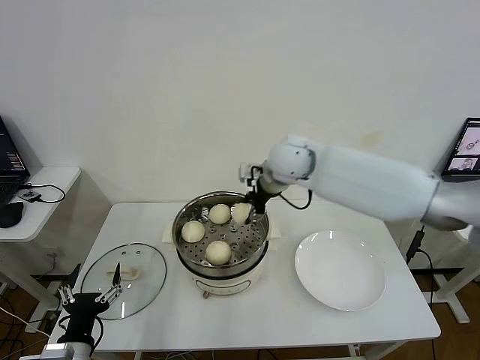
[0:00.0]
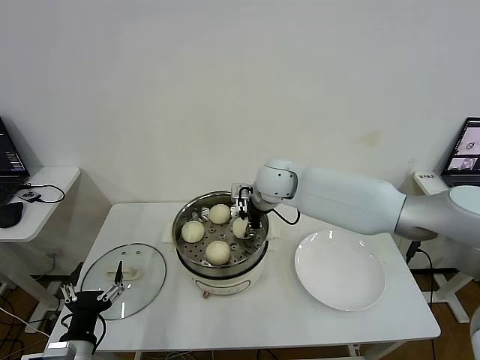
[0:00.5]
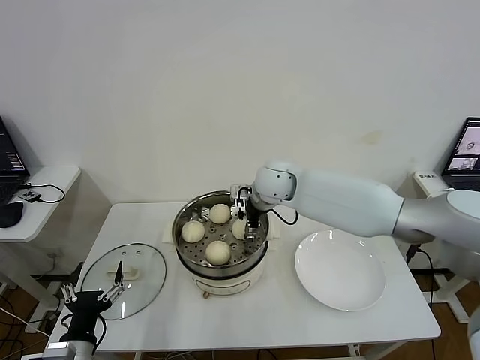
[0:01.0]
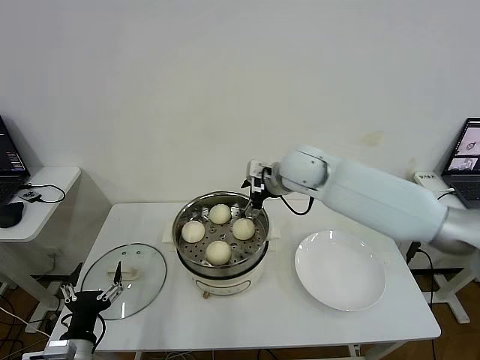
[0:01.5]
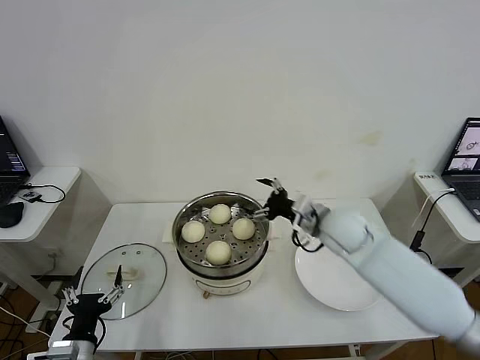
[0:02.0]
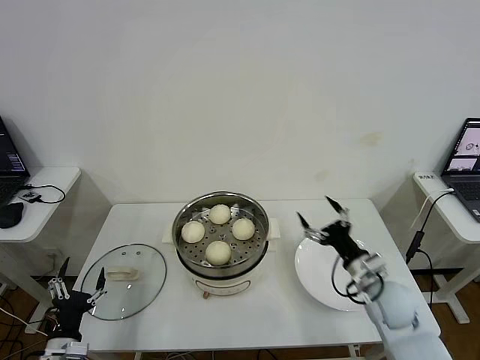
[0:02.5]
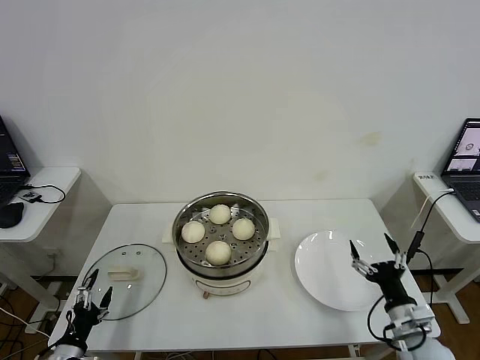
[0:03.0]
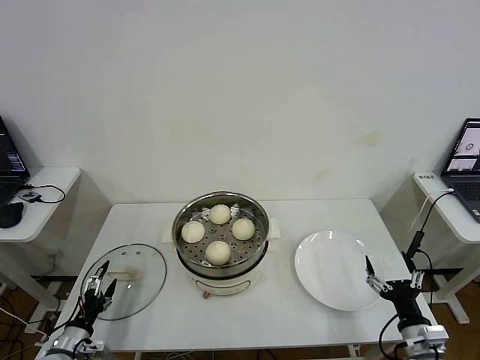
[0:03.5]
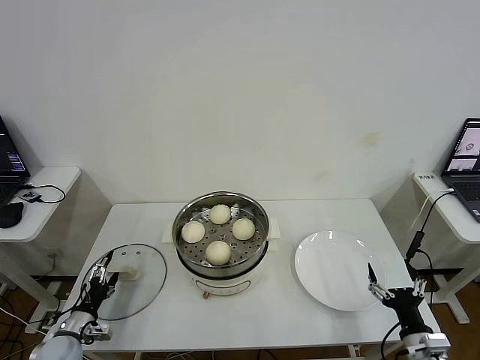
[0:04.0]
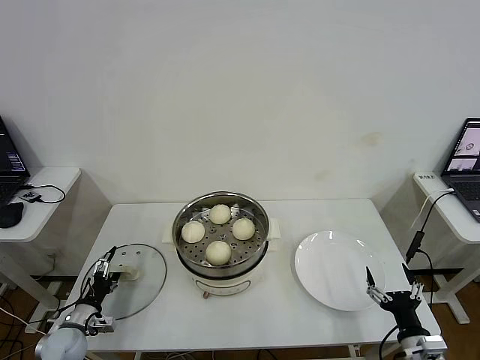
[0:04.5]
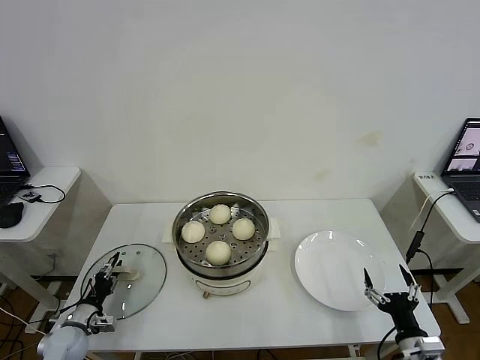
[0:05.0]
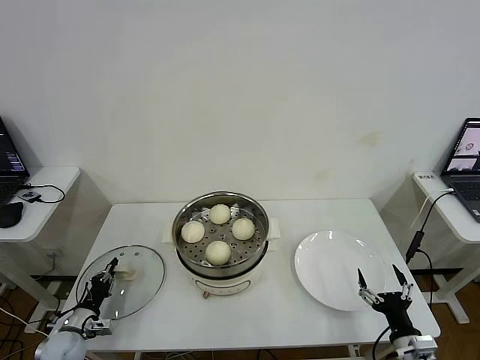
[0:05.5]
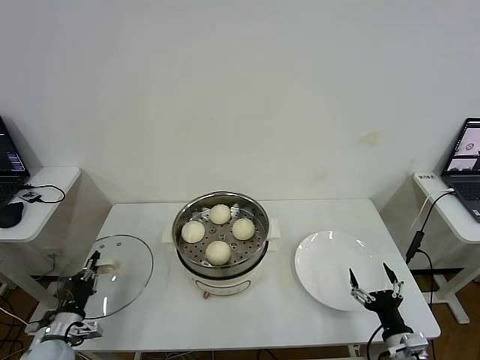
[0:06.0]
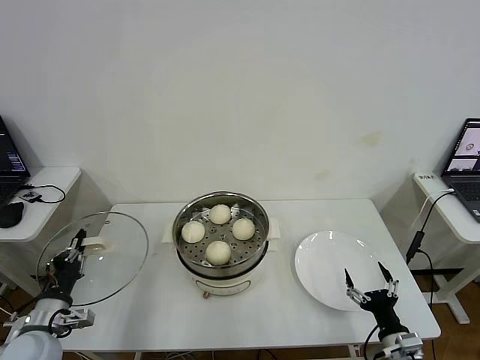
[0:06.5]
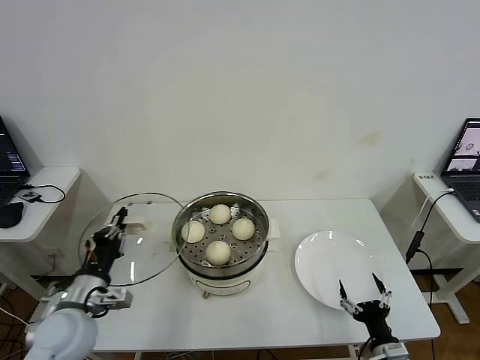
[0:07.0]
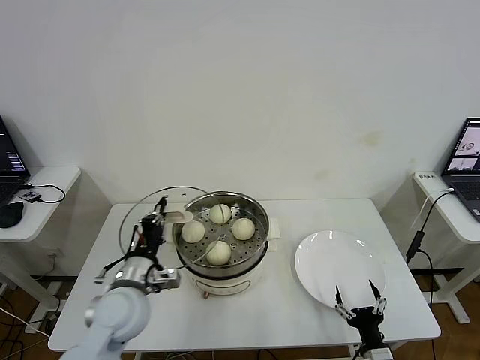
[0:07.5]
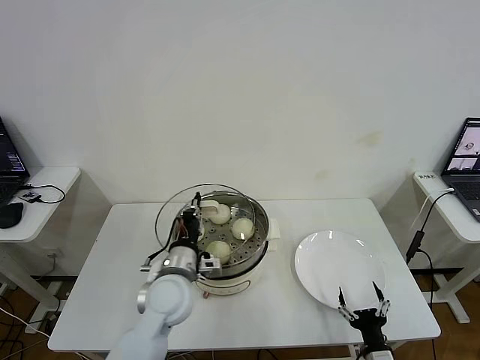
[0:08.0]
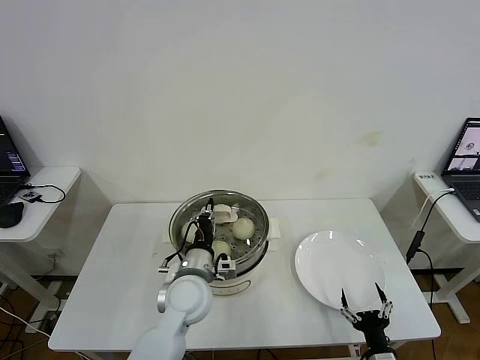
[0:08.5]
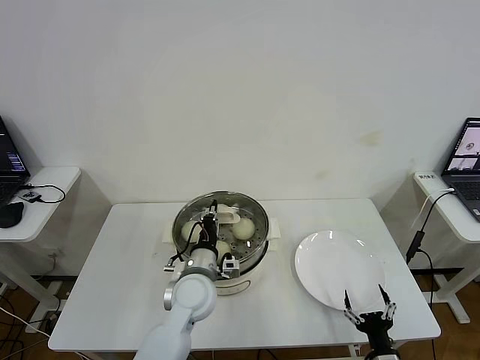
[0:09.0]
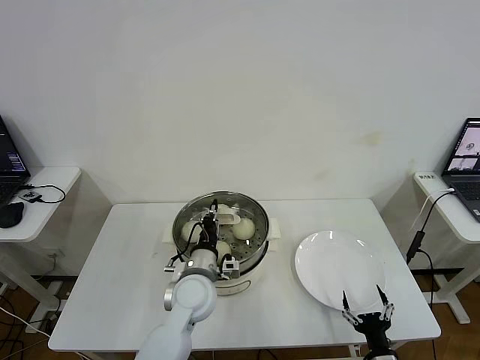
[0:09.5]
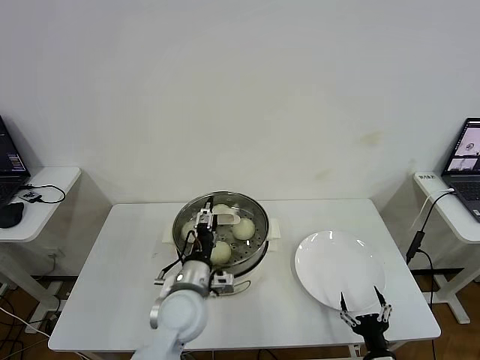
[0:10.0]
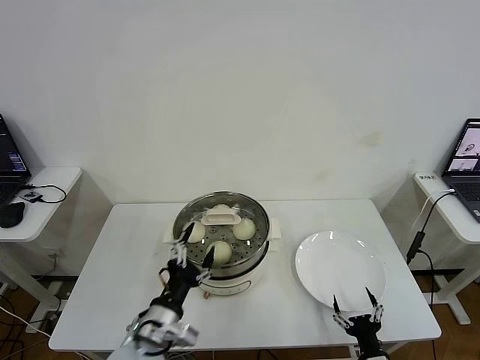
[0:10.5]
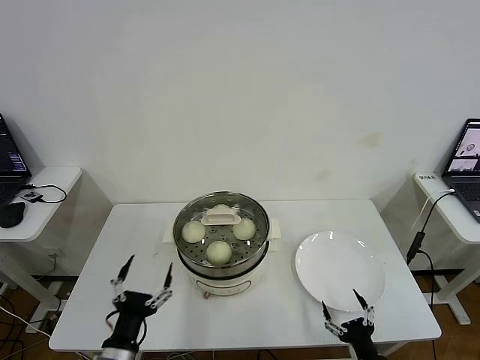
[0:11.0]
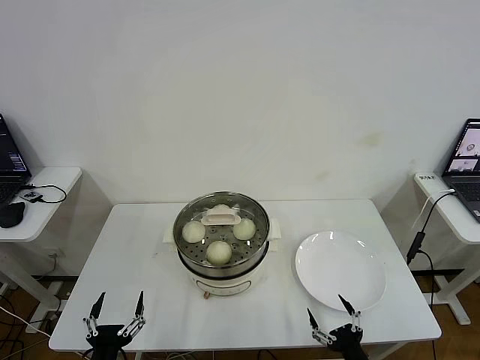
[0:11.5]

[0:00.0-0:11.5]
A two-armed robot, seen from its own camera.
Step, 0:01.5 to 0:05.0: Grasp the pot lid with left gripper.
Step, 0:05.5 to 0:09.5: Place the pot lid on the steamer with left gripper.
0:00.0 to 0:02.0: The right gripper heads to the right, downward and backward, covering approximately 20 cm, and opens up.
0:02.0 to 0:04.0: The left gripper heads to the left, forward and downward, covering approximately 15 cm; the right gripper is displaced backward, downward and to the right by some 35 cm.
0:04.0 to 0:06.0: The left gripper closes up.
0:06.0 to 0:07.5: The left gripper travels to the right and upward by approximately 25 cm. The right gripper shifts by roughly 5 cm.
0:07.5 to 0:09.5: The left gripper travels to the right and forward by roughly 15 cm.
0:09.5 to 0:11.5: The left gripper shifts about 30 cm backward and to the left, and opens up, while the right gripper ends up approximately 5 cm from where it was.
